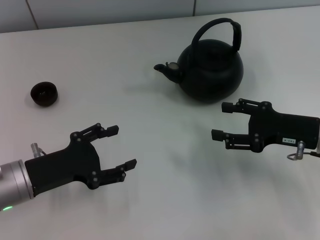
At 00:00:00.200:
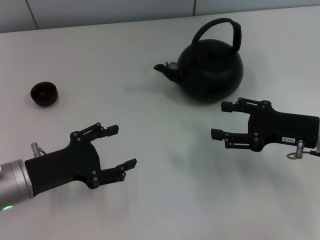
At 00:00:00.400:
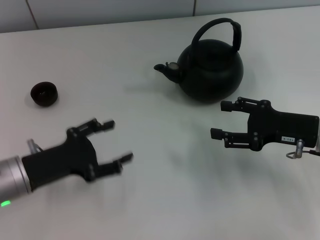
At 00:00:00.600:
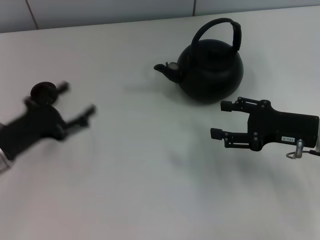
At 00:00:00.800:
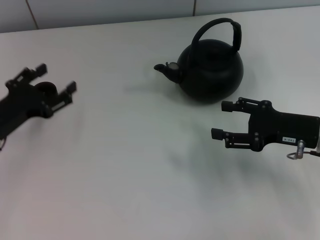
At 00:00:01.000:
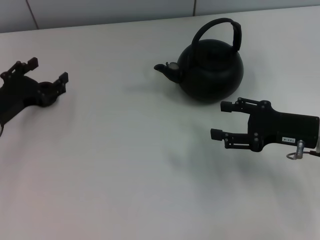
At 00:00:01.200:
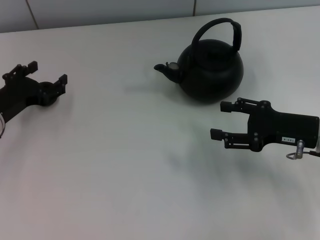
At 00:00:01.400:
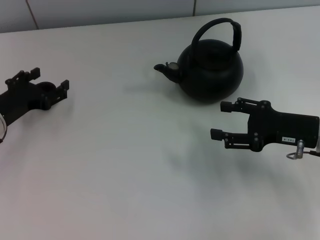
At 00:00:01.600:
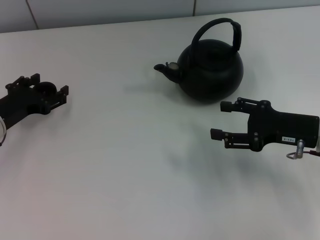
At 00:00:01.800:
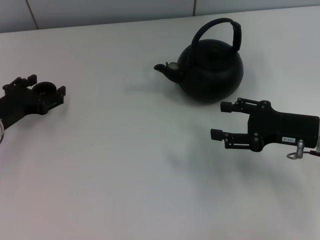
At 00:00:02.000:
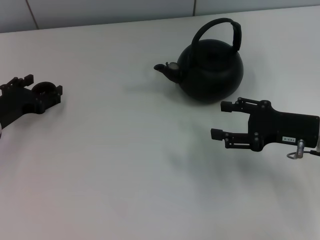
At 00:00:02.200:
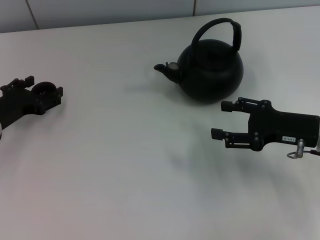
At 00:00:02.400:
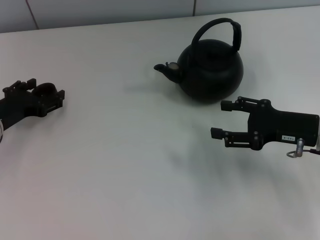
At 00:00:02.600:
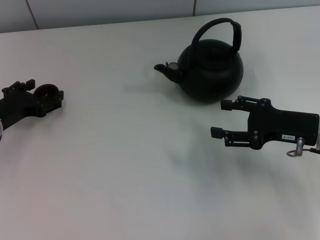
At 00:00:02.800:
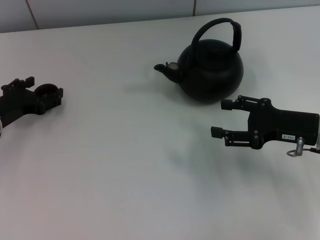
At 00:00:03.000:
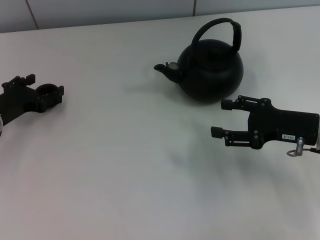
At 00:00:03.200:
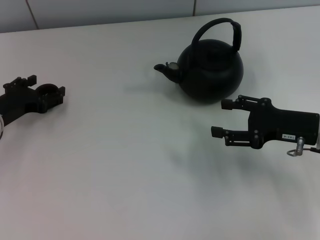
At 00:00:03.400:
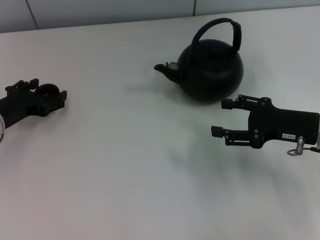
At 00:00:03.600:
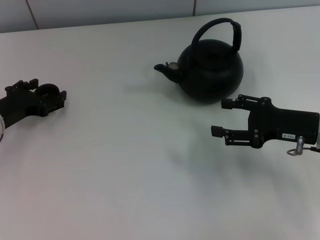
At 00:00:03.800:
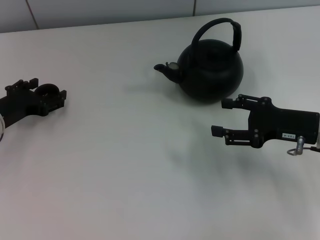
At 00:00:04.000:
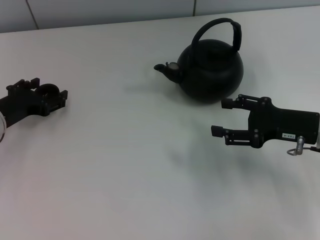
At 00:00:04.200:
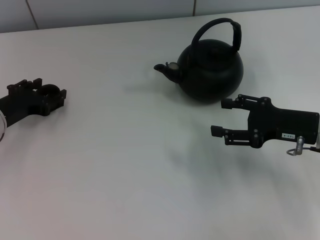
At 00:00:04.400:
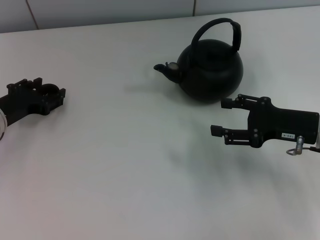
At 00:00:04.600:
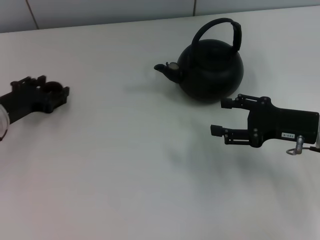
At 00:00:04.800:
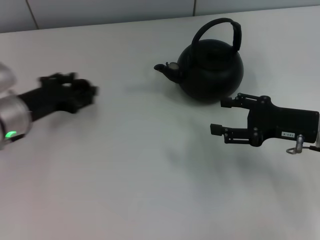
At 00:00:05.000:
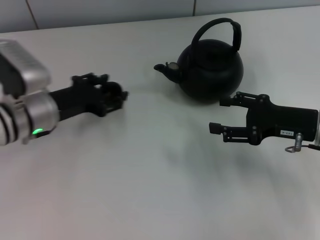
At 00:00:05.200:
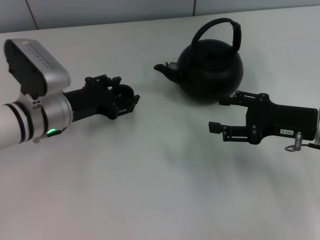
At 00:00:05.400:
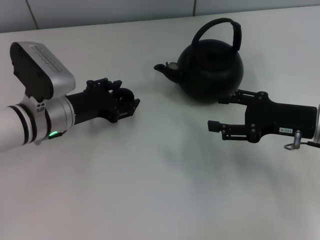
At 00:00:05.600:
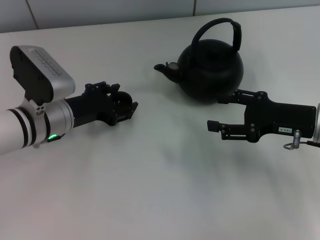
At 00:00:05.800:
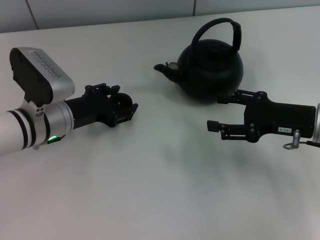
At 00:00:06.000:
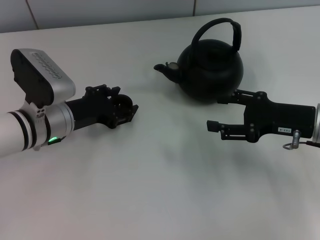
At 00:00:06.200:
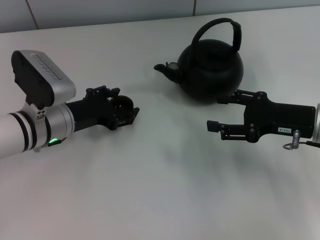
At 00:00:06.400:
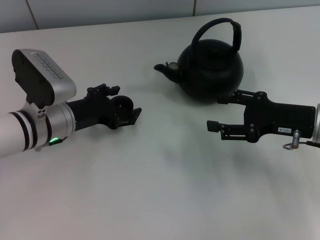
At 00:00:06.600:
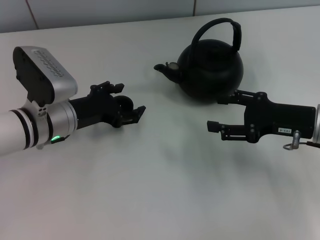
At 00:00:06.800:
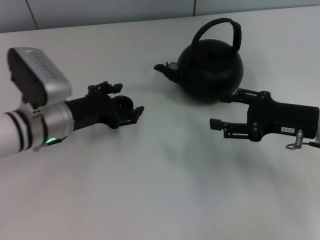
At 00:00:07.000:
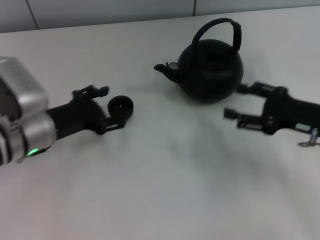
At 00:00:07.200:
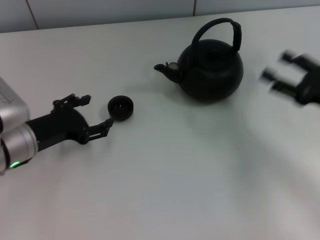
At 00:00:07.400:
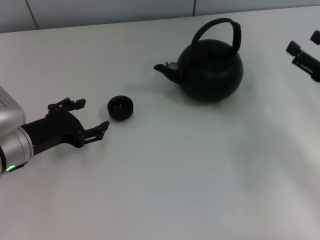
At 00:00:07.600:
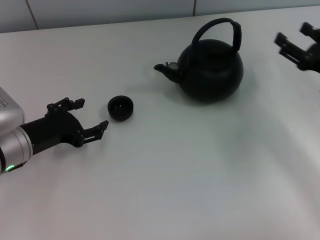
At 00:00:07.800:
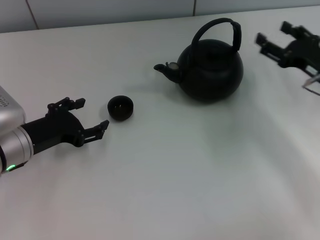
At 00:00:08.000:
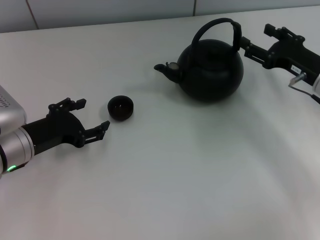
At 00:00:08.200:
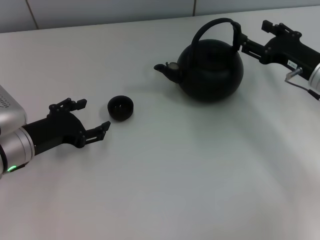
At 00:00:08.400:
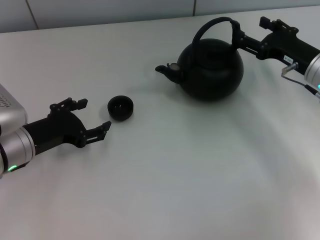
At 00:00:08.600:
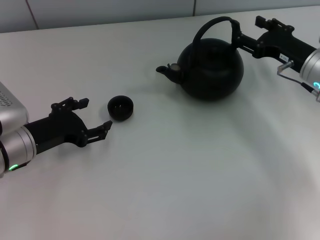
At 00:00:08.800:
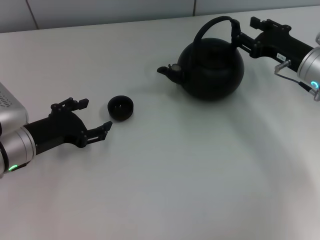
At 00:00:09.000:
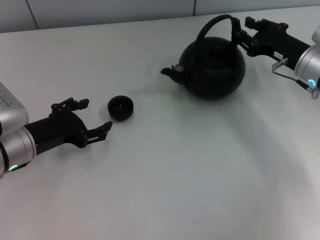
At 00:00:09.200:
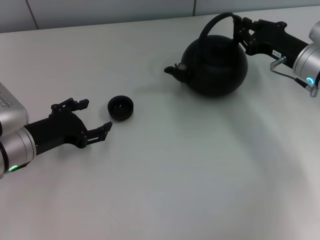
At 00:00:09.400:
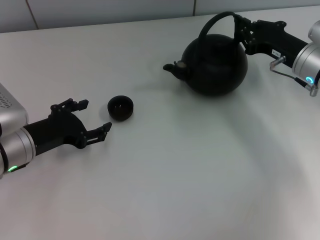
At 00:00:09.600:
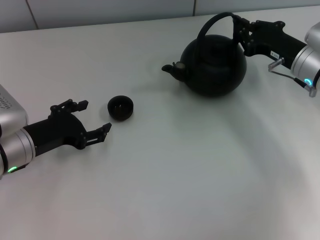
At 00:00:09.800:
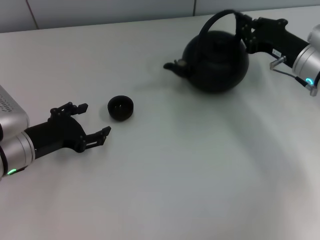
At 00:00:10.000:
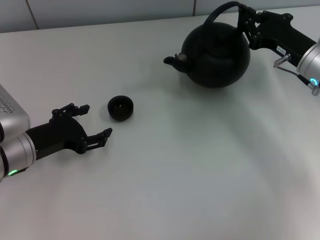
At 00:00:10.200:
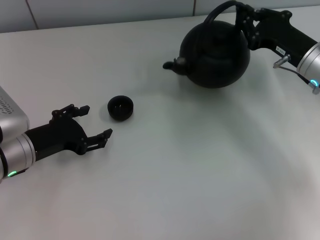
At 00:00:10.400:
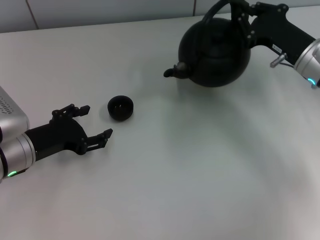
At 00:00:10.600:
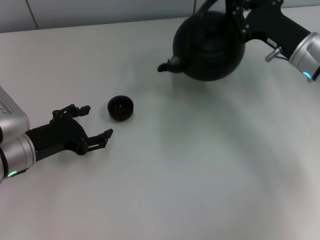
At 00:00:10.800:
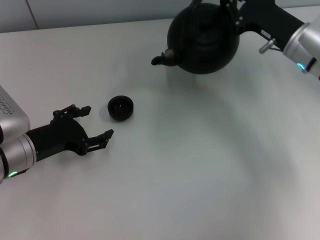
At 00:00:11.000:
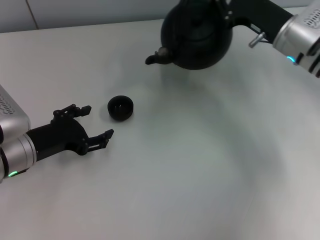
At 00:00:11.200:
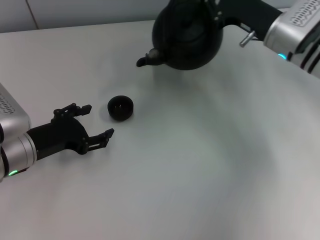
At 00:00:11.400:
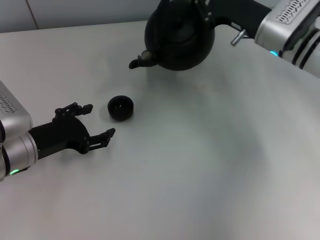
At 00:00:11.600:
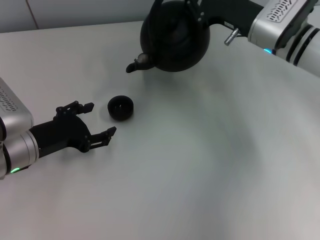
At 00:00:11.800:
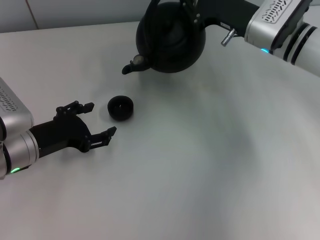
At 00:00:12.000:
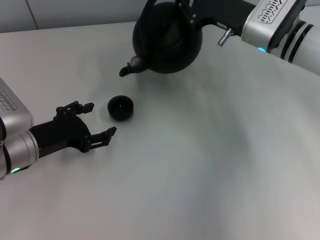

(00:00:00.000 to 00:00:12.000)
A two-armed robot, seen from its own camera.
Task of the whole recording: Grasp the handle of the teapot with one hand and pour tea into the teacup.
Step, 00:00:00.000 - 00:00:05.000: Pick up the teacup with the left gripper.
Step, 00:00:05.200 - 00:00:07.200: Place the teacup in the center of view with the left gripper.
Step, 00:00:07.400 - 00:00:10.400: Pick up the teapot with the right gripper.
00:00:00.000 - 00:00:01.600: The left gripper heads forward, covering roughly 10 cm.
00:00:01.600 - 00:00:03.000: The grippers make only small movements.
00:00:03.000 - 00:00:04.400: The left gripper closes.
00:00:04.400 - 00:00:06.000: The left gripper moves to the right, some 10 cm.
00:00:06.000 - 00:00:07.600: The right gripper shifts roughly 5 cm to the right. The left gripper is displaced to the left by roughly 5 cm, and opens.
00:00:07.600 - 00:00:09.000: The right gripper travels forward and to the left by some 10 cm, and closes up.
00:00:09.000 - 00:00:10.400: The right gripper closes.
00:00:10.400 - 00:00:12.000: The right gripper shifts approximately 10 cm to the left and forward.

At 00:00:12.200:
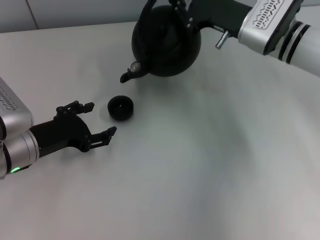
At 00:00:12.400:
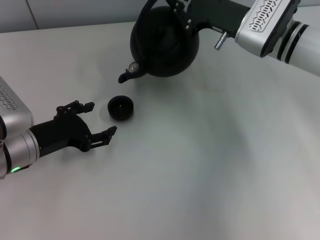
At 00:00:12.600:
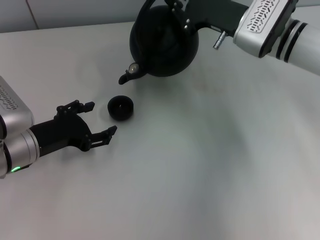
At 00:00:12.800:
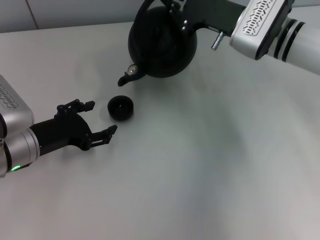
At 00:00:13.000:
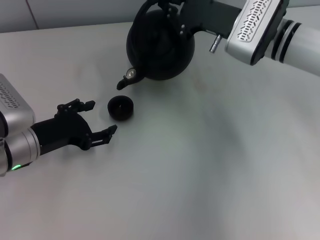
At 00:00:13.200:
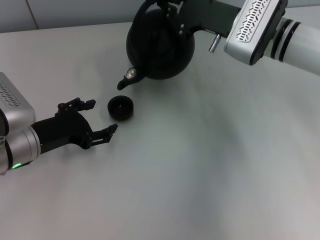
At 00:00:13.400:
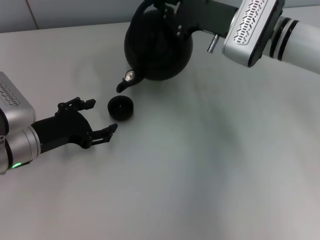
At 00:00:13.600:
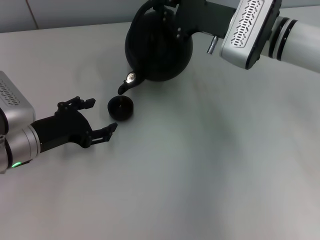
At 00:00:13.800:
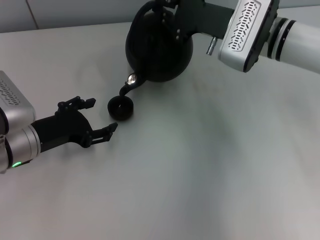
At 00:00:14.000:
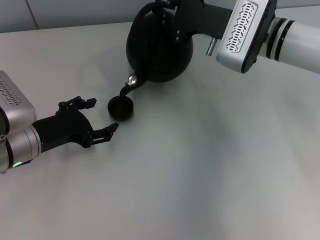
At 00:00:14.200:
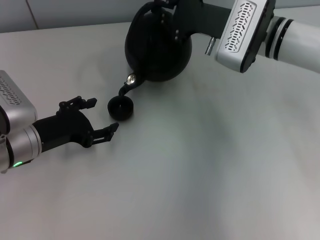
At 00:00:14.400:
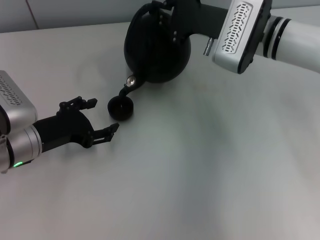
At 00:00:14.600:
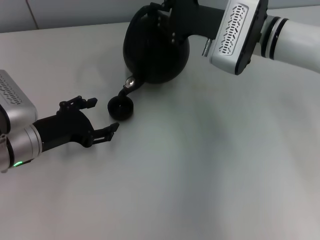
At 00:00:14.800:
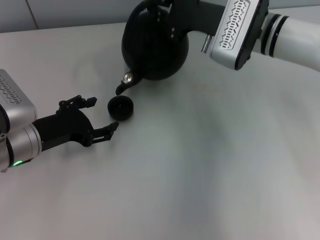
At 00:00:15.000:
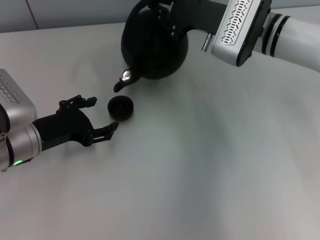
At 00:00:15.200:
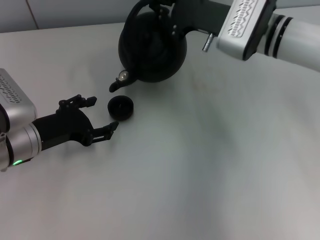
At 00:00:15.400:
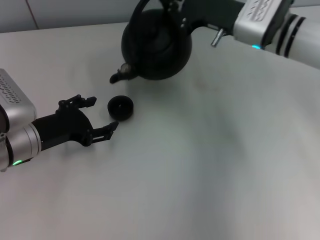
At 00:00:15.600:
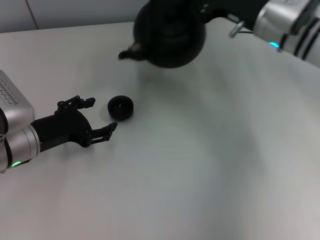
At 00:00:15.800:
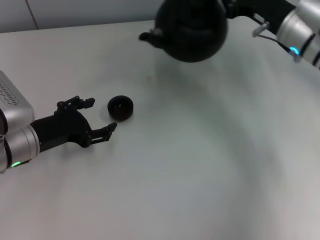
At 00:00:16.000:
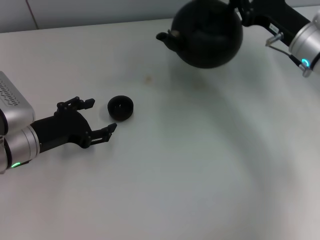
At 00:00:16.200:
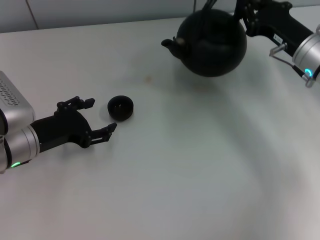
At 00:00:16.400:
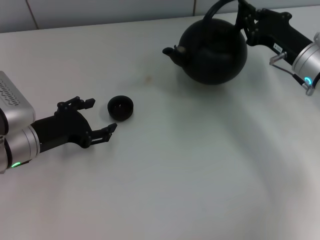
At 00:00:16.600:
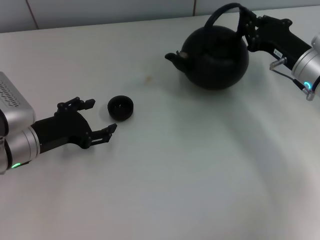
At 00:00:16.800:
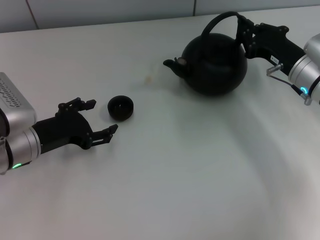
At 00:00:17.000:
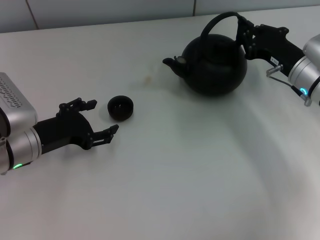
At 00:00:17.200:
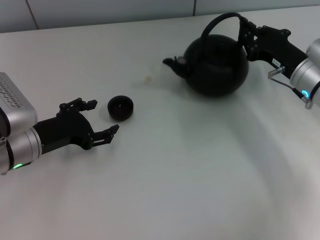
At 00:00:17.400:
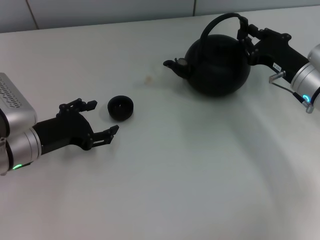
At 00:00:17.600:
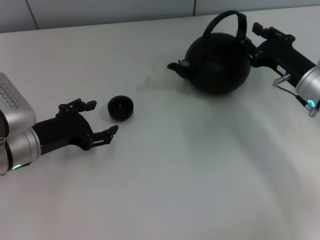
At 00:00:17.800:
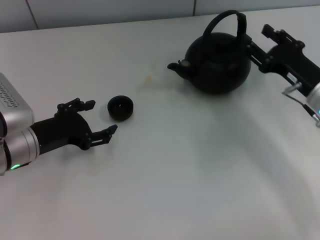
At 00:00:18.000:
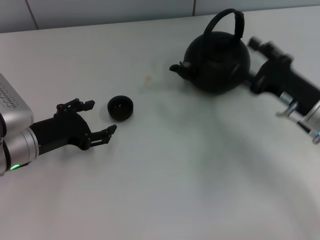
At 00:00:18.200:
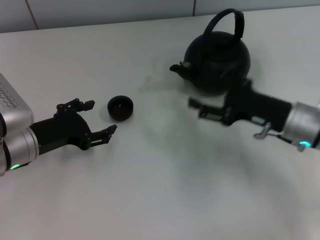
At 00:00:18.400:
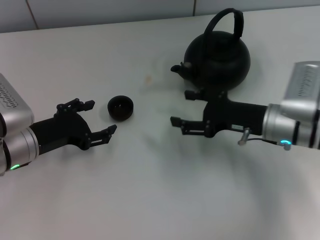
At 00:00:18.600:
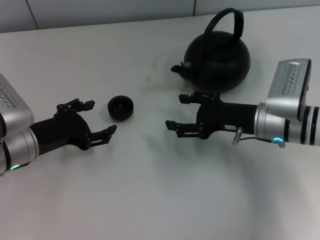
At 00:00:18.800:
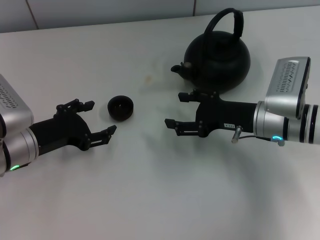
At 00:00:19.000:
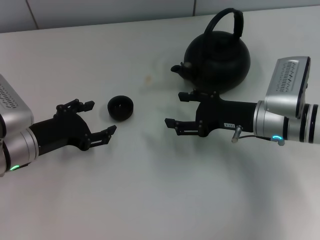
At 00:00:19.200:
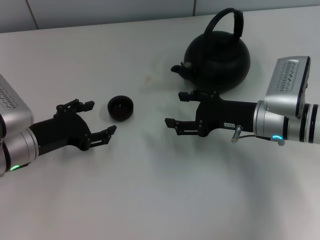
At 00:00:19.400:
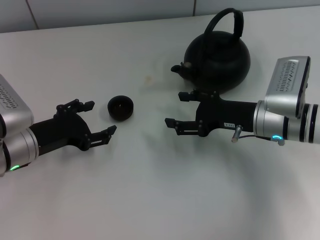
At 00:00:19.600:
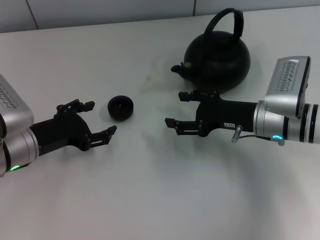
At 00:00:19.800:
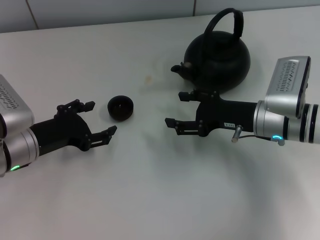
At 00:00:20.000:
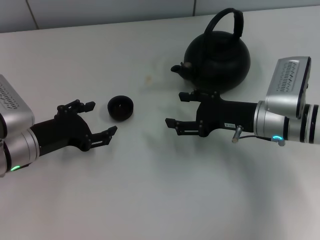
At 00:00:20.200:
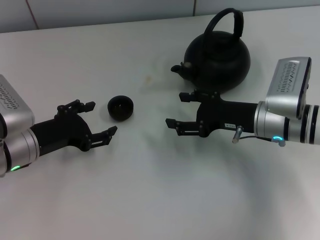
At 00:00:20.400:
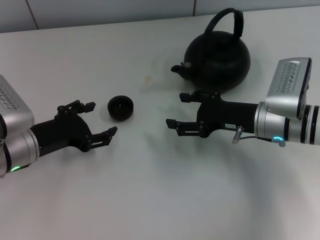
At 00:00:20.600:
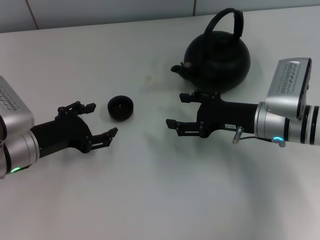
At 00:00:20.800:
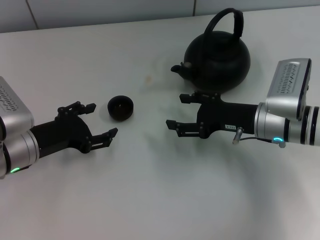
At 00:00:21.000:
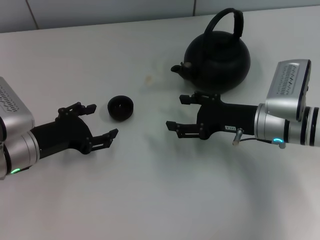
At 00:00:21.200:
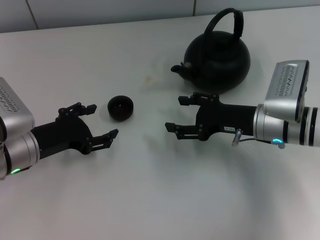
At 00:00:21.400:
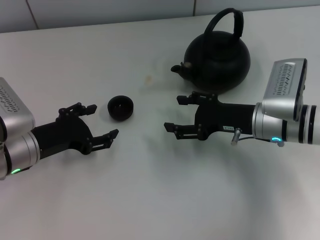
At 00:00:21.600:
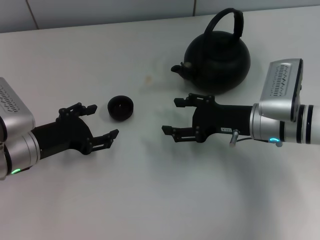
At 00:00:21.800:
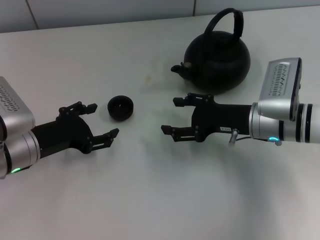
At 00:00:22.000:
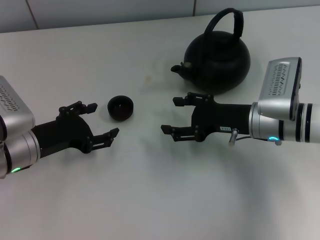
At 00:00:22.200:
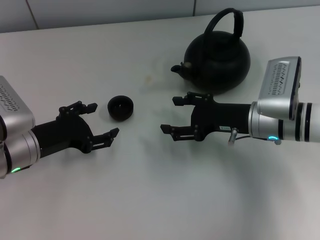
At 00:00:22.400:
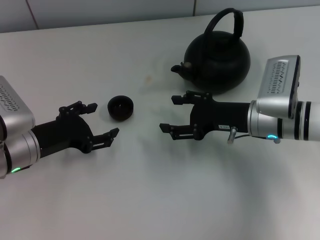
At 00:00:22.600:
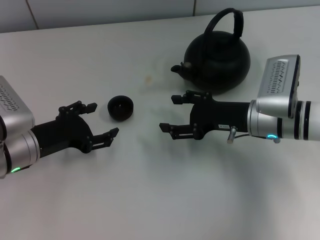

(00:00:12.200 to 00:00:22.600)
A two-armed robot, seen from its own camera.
Task of the whole recording: Grasp the handle of the teapot with one hand and pour tea into the teacup.
Step, 00:00:15.400 - 00:00:18.800: Put down the teapot with the right gripper.
00:00:12.200 - 00:00:15.200: The grippers make only small movements.
00:00:15.200 - 00:00:16.600: The right gripper moves to the right, downward and backward, roughly 15 cm.
00:00:16.600 - 00:00:18.200: The right gripper moves backward, roughly 5 cm, and opens its fingers.
00:00:18.200 - 00:00:19.600: The grippers stay close to where they were, moving slightly.
00:00:19.600 - 00:00:22.600: Neither gripper changes place.
